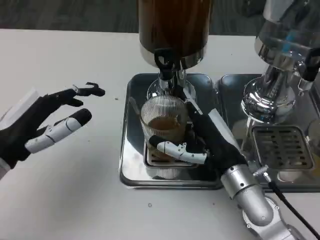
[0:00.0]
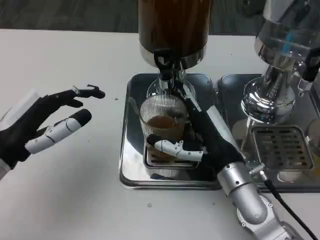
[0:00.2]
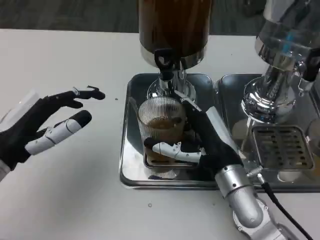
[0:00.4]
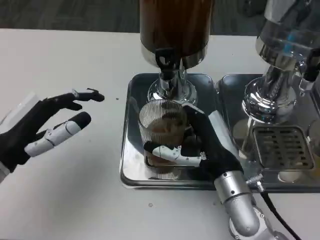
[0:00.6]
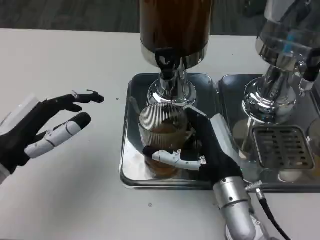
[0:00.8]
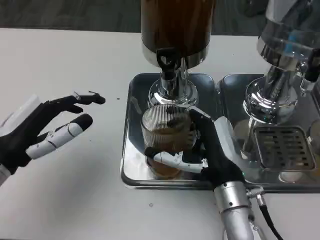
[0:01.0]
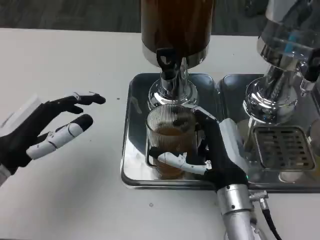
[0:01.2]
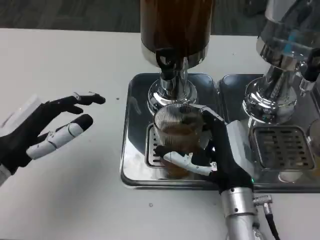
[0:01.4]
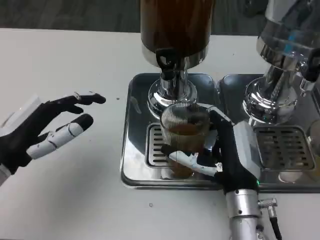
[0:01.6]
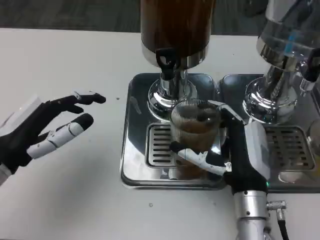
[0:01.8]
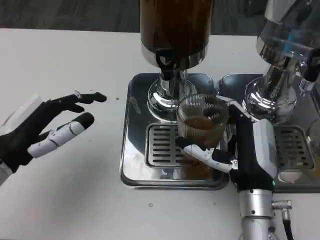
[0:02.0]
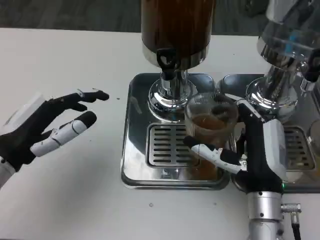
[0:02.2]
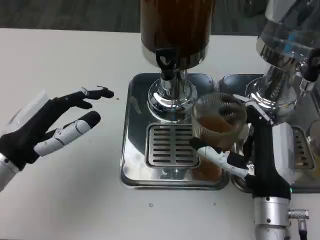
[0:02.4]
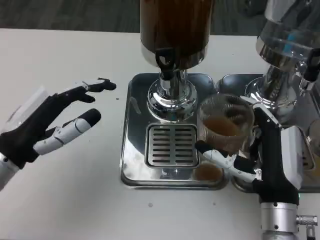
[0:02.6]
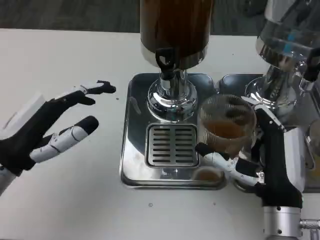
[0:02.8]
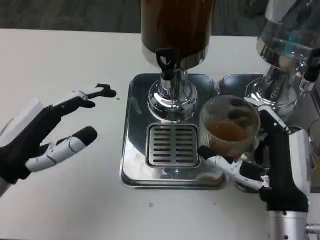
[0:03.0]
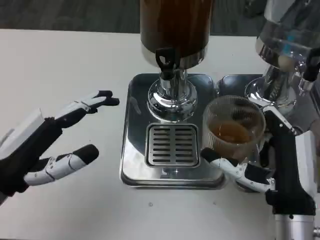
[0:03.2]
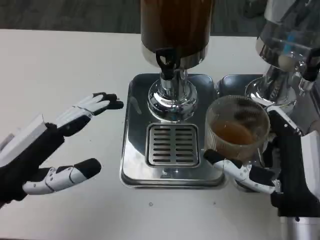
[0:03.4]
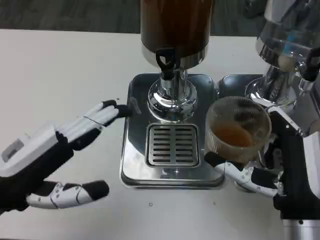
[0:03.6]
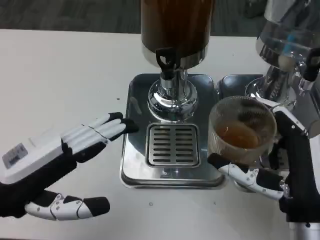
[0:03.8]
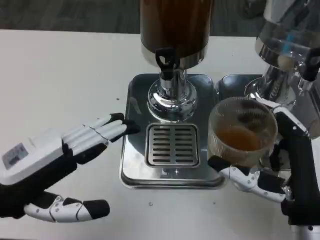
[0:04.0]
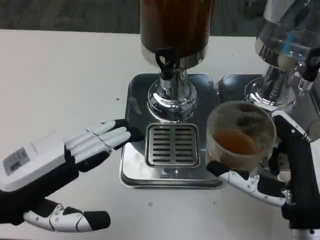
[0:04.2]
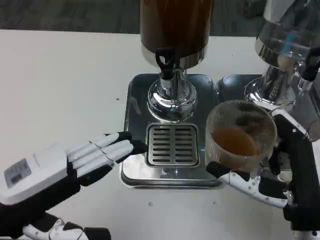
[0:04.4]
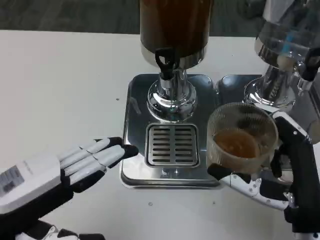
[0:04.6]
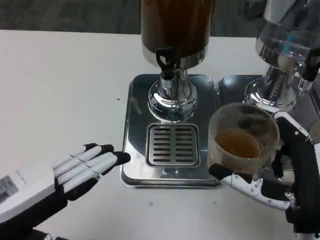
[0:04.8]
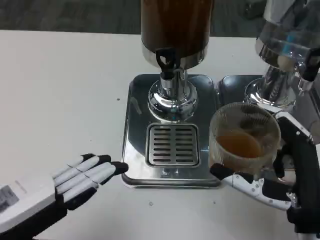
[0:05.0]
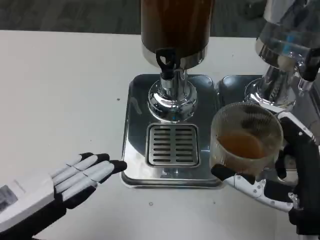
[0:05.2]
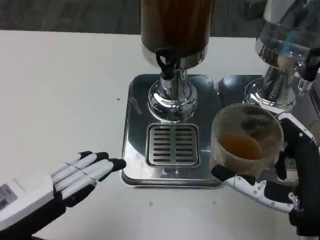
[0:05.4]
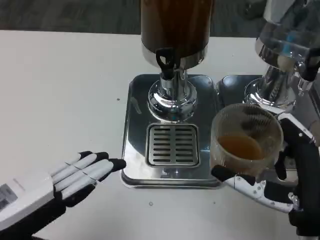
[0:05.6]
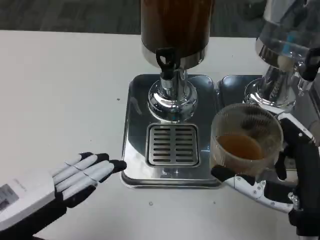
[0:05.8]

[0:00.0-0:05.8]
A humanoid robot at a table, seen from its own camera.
Task of the whole recording: Grasp the cup under the faucet to collect the drink, then remove the cup.
0:01.4 to 0:02.8: The right hand changes place by about 5 cm.
0:02.8 to 0:04.4: The left hand travels backward by roughly 5 cm; the right hand changes place by about 5 cm.
0:04.4 to 0:05.8: The hands move only a little.

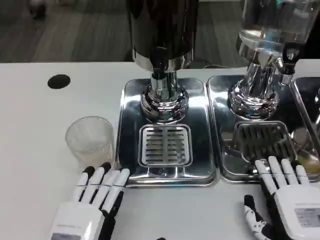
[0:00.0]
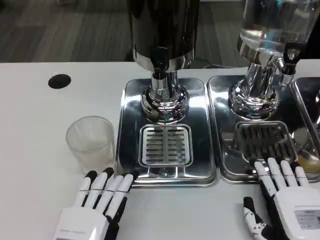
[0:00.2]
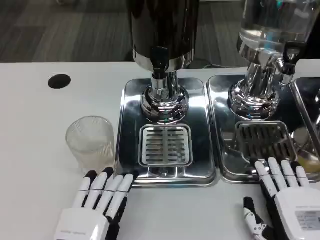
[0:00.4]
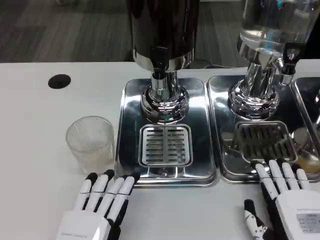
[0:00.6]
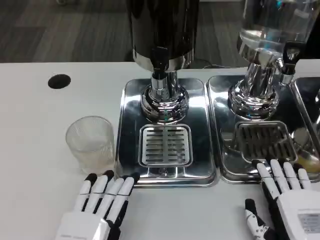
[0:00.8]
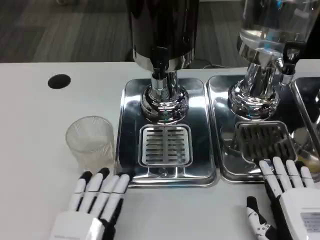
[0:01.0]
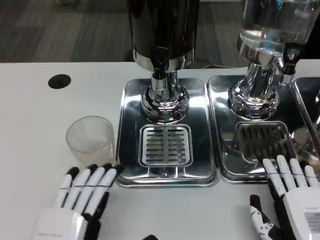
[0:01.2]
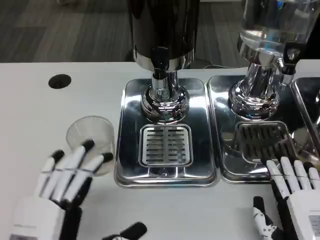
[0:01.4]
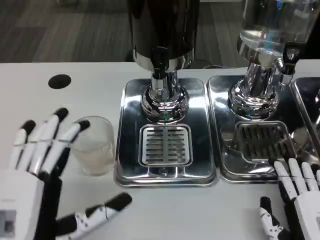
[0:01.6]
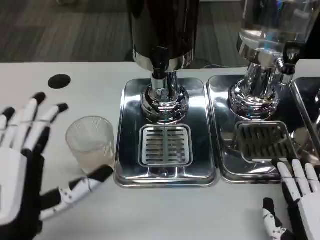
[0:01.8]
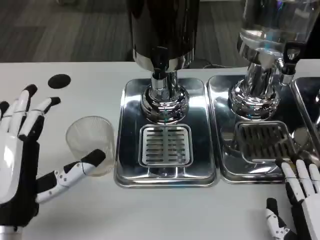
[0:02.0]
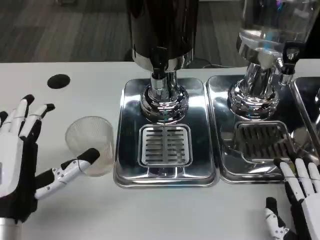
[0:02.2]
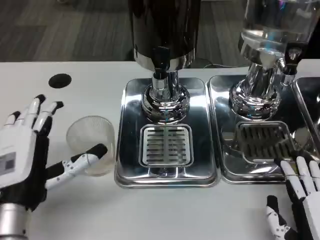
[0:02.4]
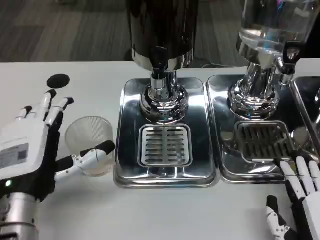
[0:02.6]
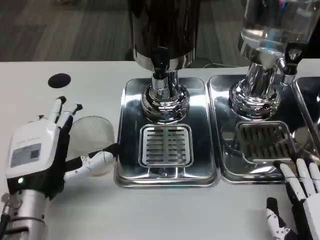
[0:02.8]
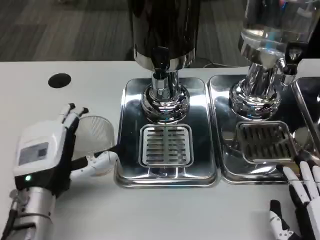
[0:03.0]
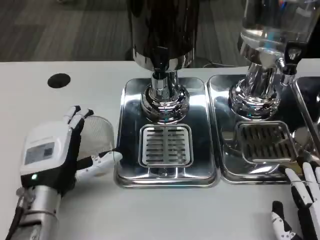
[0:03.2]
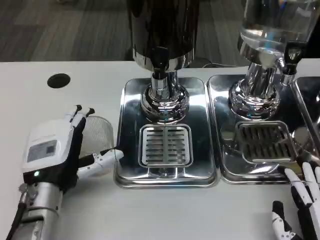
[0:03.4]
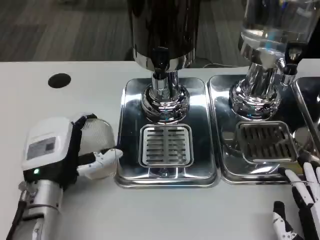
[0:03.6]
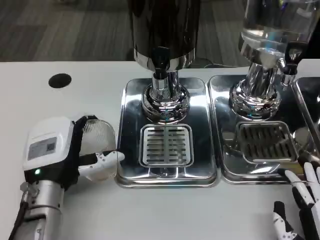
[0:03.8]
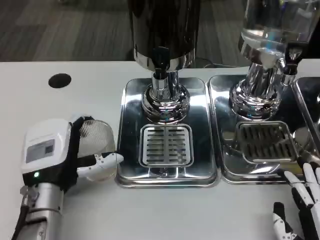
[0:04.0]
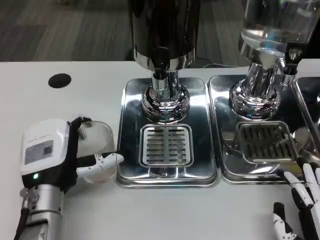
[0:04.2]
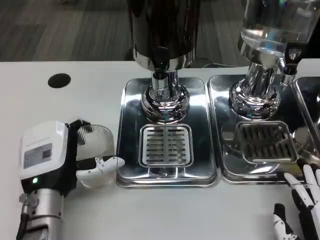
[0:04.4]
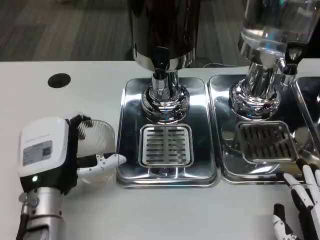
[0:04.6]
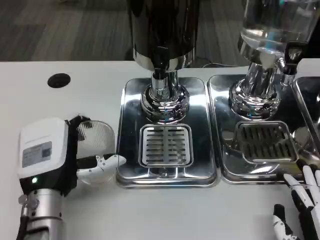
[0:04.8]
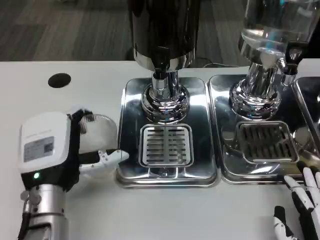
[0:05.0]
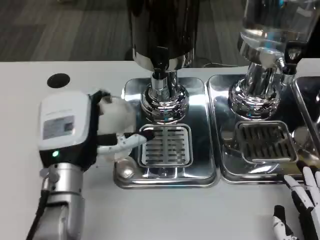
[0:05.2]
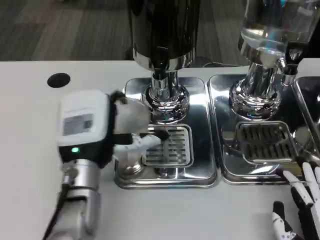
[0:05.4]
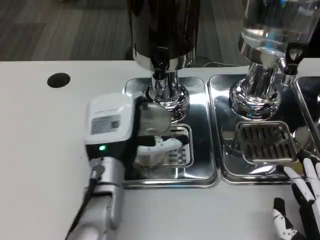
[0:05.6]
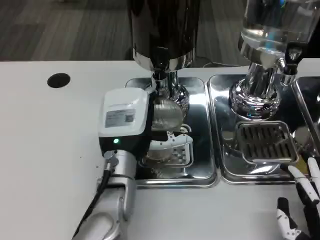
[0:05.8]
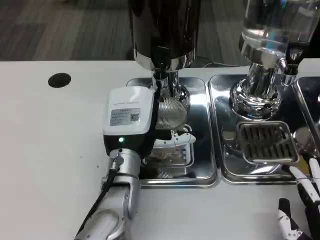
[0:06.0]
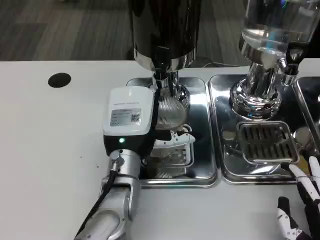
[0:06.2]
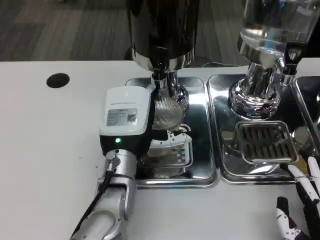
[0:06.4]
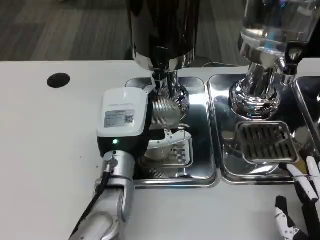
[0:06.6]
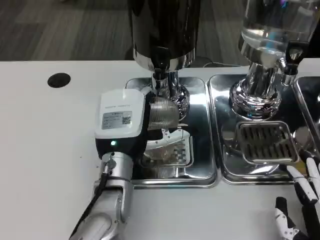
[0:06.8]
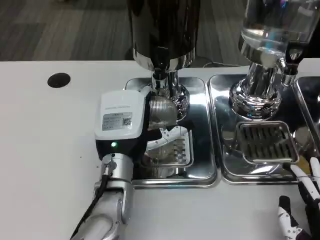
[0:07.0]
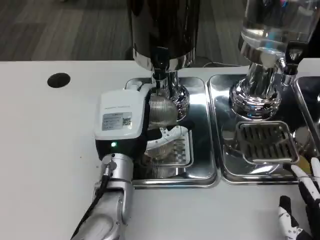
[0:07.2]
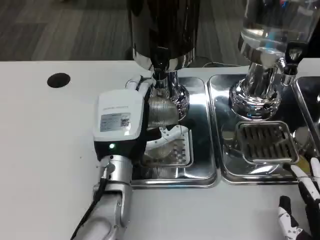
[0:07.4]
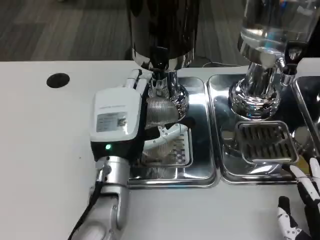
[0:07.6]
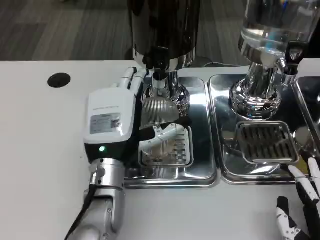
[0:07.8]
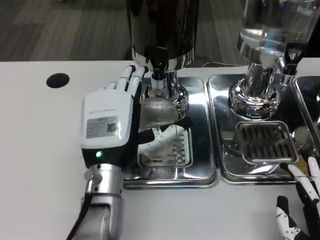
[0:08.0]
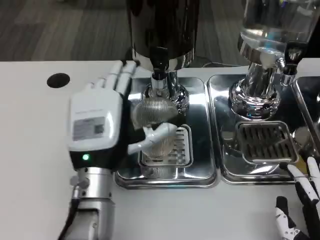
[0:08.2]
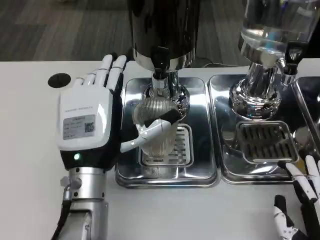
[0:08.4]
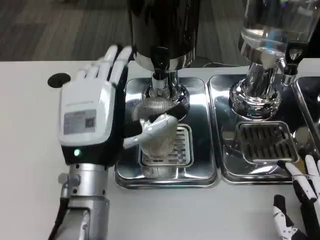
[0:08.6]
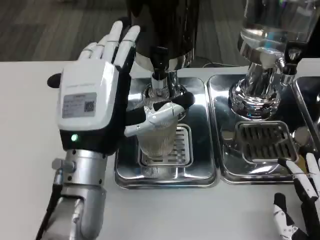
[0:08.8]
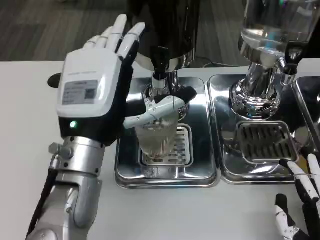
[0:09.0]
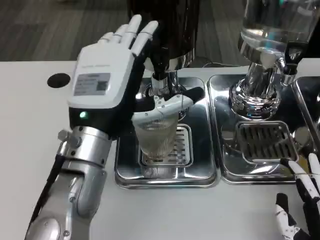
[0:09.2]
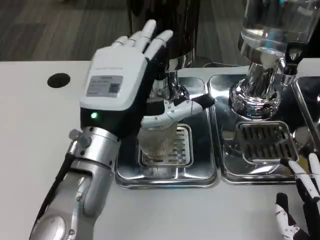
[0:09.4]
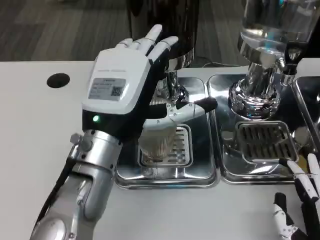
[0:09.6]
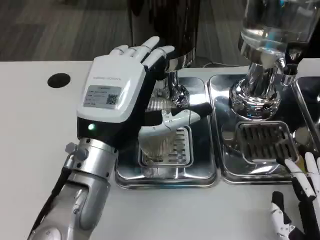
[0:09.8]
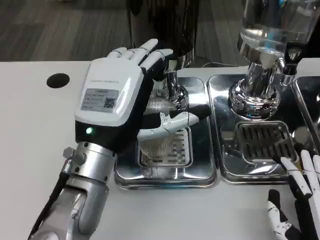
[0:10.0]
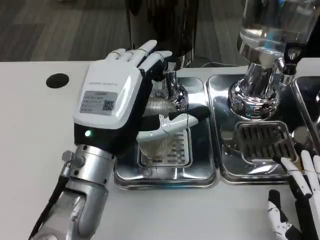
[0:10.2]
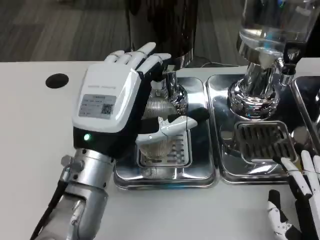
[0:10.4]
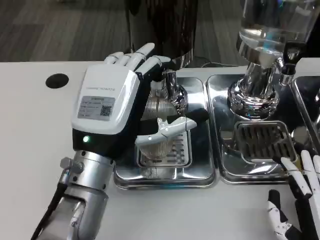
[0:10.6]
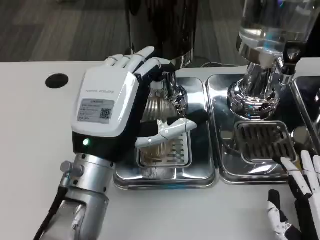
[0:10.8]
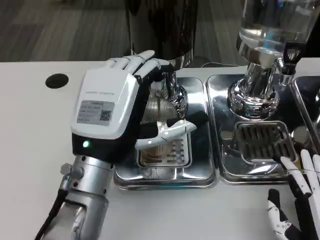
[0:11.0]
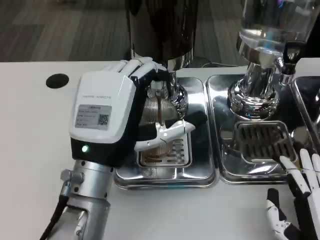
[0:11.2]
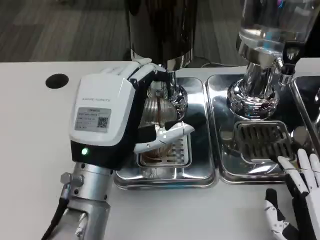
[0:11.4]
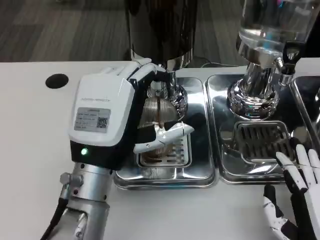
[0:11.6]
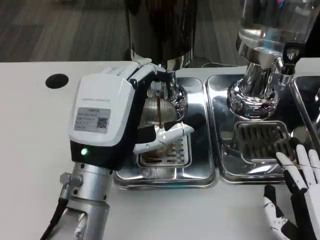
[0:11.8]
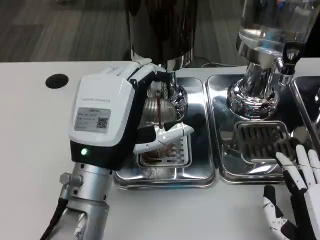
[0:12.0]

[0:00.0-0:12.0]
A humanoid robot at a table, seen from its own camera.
Task of the whole recording: Grasp the cup under the faucet to collect the drink, then remove the cup.
0:00.0 to 0:01.6: The left hand is displaced upward by roughly 5 cm.
0:01.6 to 0:03.0: The left hand travels forward by approximately 10 cm.
0:03.0 to 0:04.4: The hands stay close to where they were, moving slightly.
0:04.4 to 0:06.0: The left hand is displaced to the right and forward by roughly 10 cm.
0:06.0 to 0:07.6: The hands make only small movements.
0:07.6 to 0:09.0: The left hand travels upward by some 10 cm.
0:10.4 to 0:12.0: There are only small adjustments of the hands.

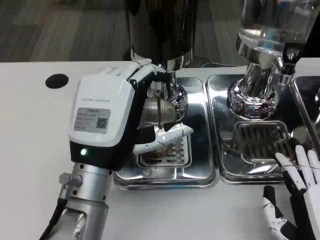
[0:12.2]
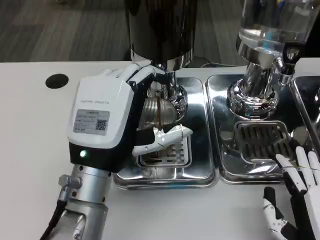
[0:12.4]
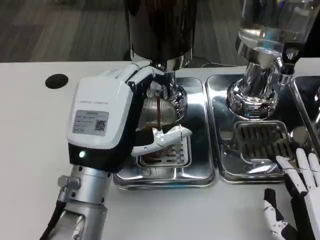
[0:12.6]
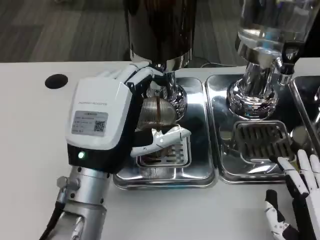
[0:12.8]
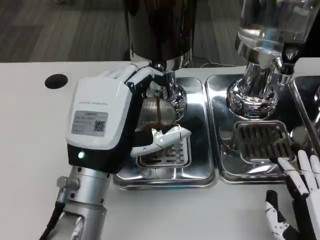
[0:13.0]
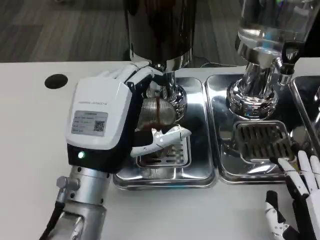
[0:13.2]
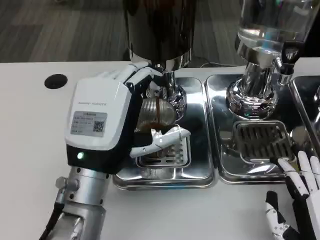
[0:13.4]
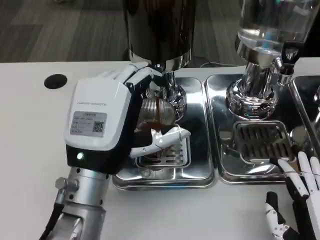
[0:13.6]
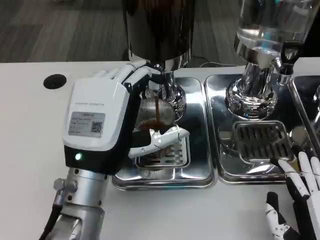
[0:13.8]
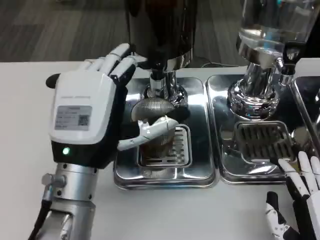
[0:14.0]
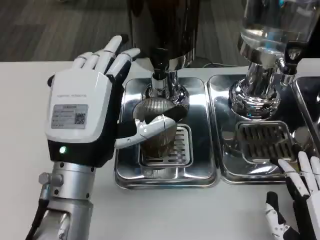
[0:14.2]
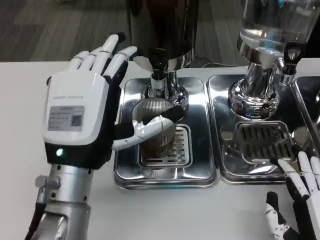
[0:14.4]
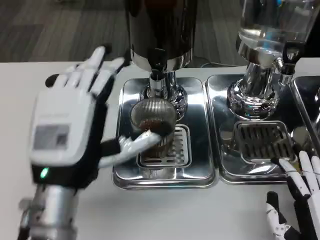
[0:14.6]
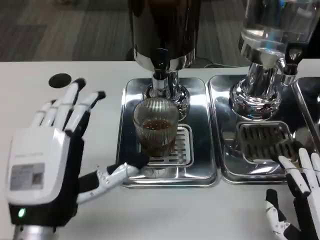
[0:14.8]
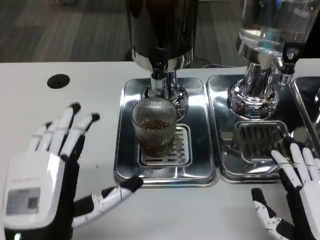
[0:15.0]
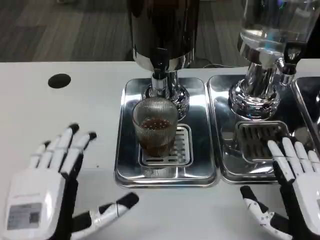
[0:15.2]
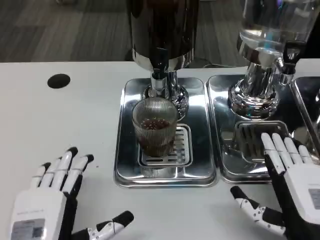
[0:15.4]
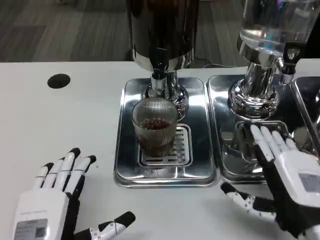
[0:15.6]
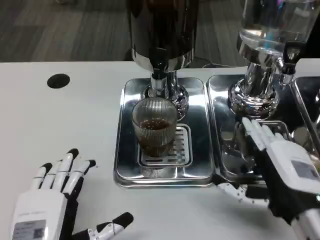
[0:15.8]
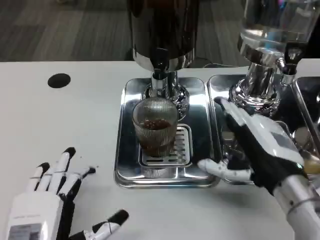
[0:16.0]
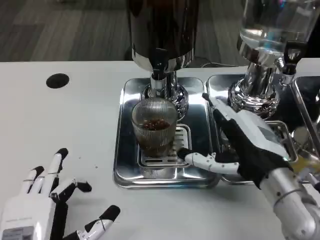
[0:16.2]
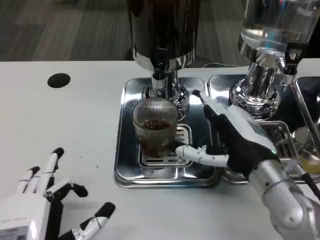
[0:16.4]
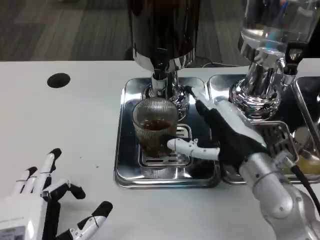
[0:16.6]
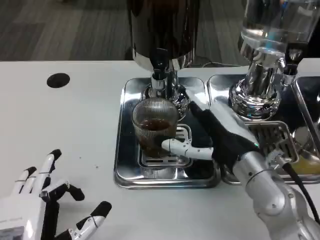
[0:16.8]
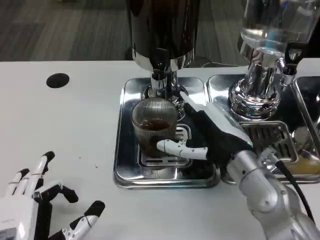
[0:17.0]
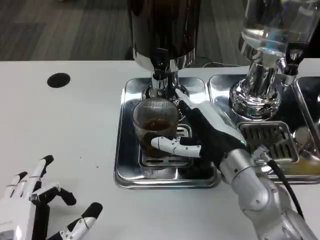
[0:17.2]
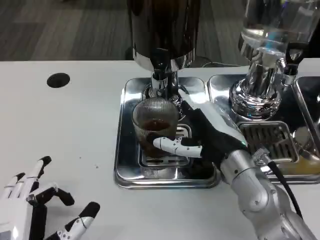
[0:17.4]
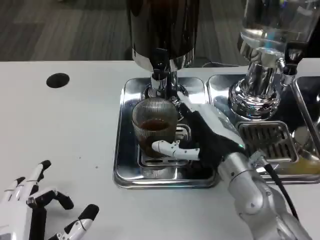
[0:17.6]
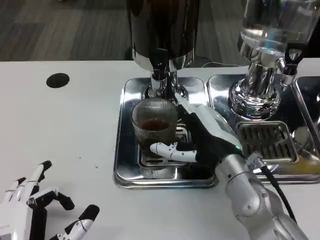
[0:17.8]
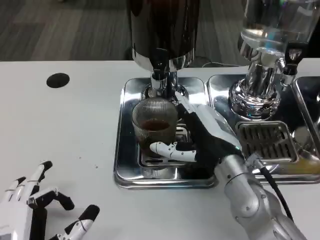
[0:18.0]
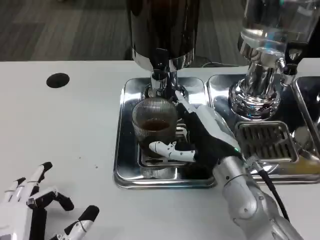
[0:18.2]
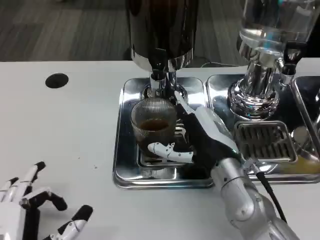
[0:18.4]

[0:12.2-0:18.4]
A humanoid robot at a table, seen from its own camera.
Task of the whole recording: Grasp the cup under the faucet to collect the drink, then remove the cup.
0:12.2 to 0:13.8: Both hands stay put.
0:13.8 to 0:15.4: The left hand heads backward, downward and to the left, covering roughly 15 cm.
0:15.4 to 0:16.8: The right hand shifts approximately 15 cm forward, to the left and upward.
